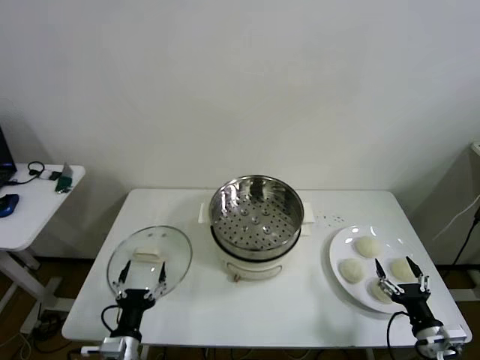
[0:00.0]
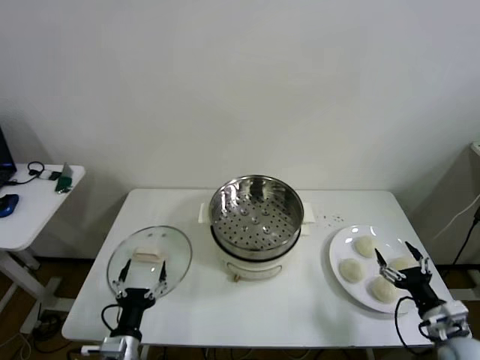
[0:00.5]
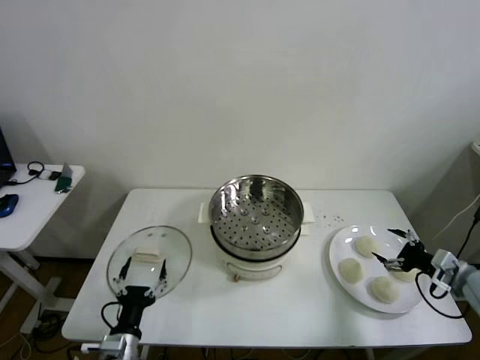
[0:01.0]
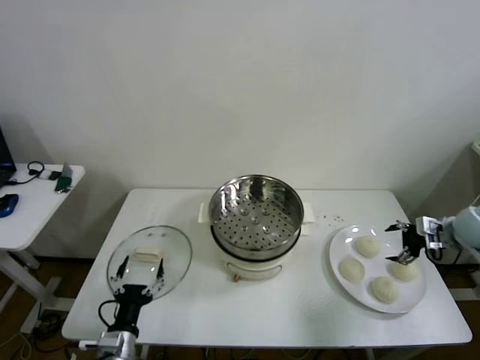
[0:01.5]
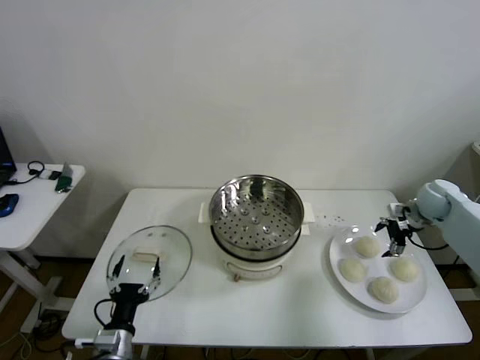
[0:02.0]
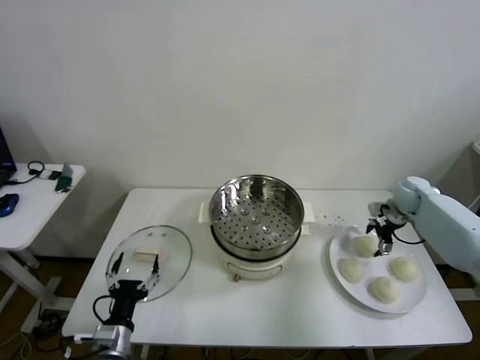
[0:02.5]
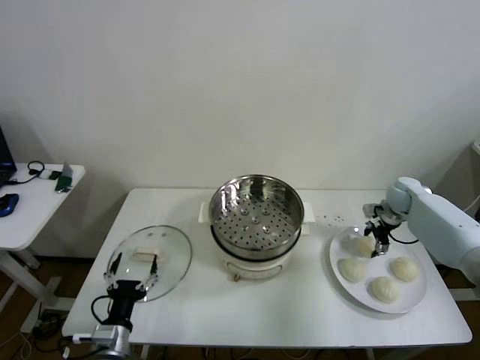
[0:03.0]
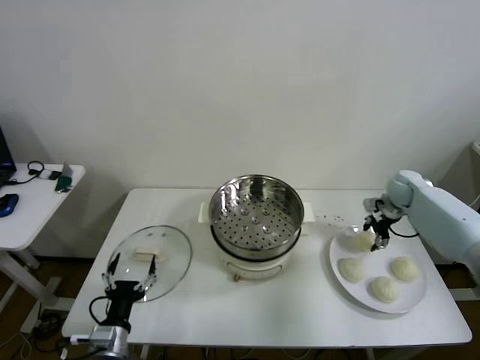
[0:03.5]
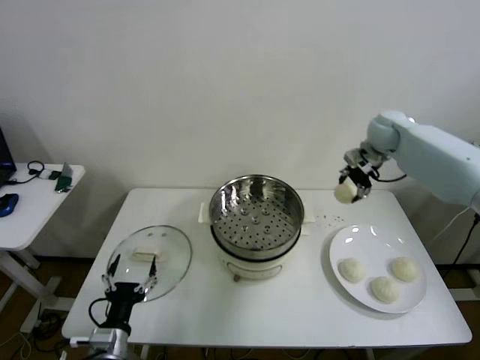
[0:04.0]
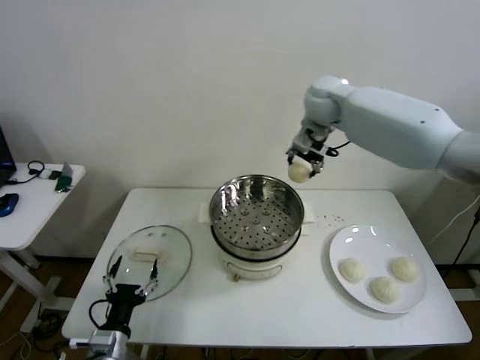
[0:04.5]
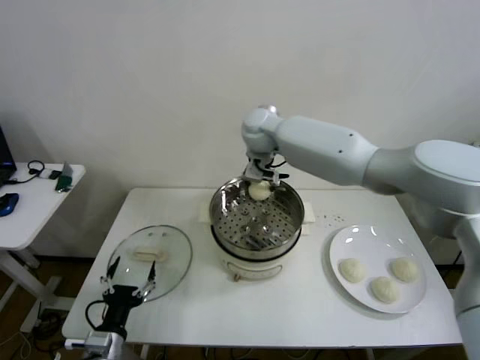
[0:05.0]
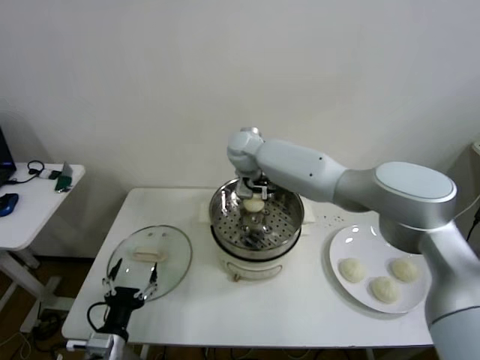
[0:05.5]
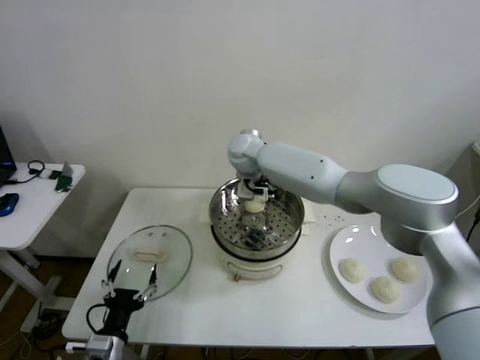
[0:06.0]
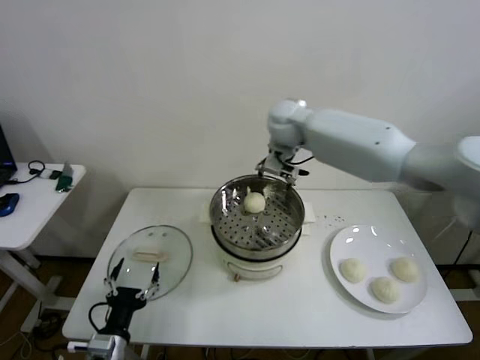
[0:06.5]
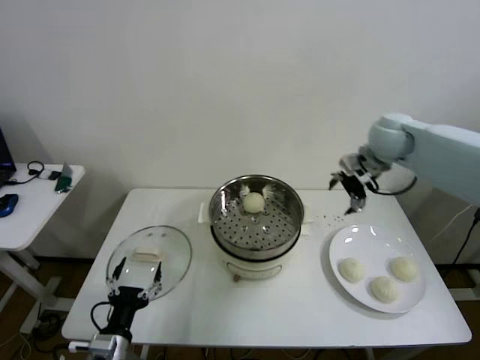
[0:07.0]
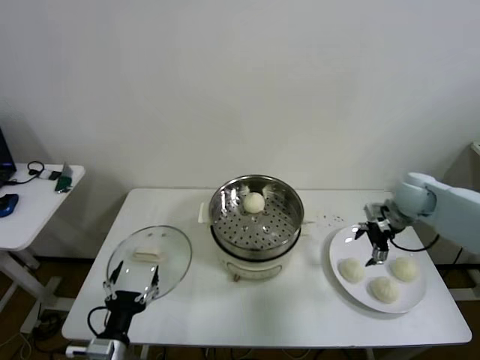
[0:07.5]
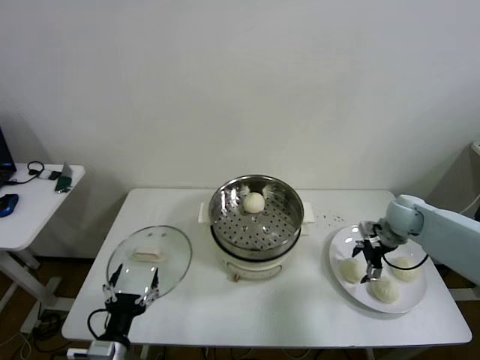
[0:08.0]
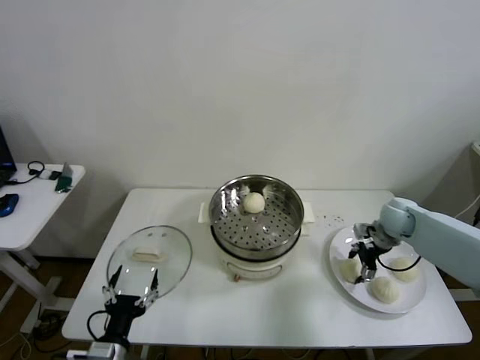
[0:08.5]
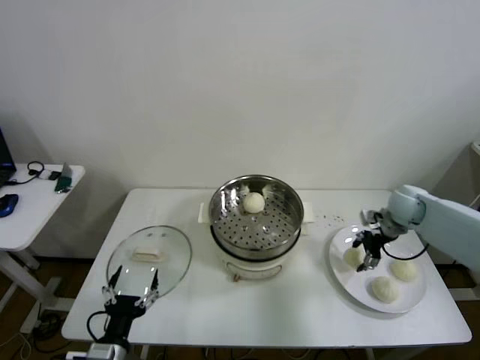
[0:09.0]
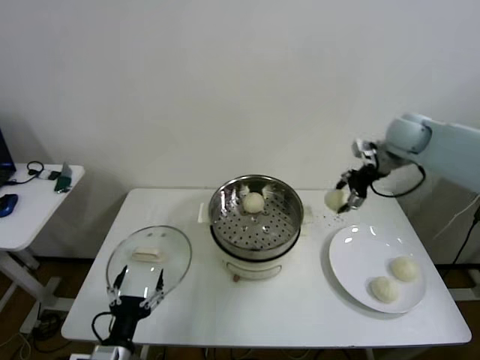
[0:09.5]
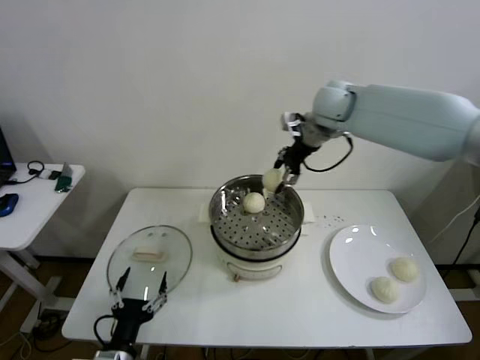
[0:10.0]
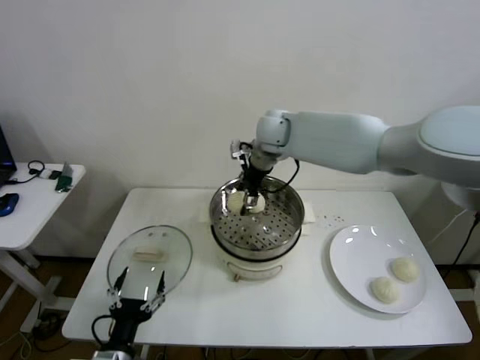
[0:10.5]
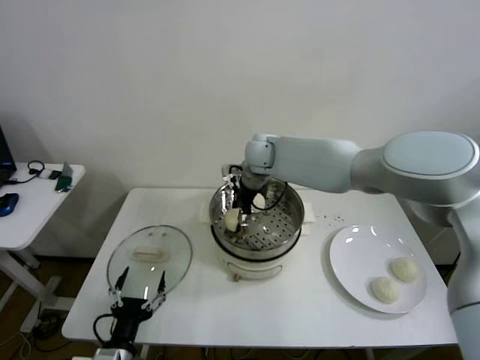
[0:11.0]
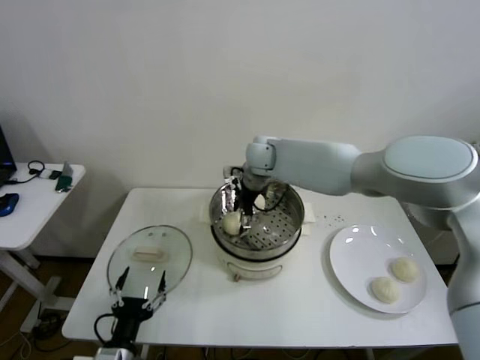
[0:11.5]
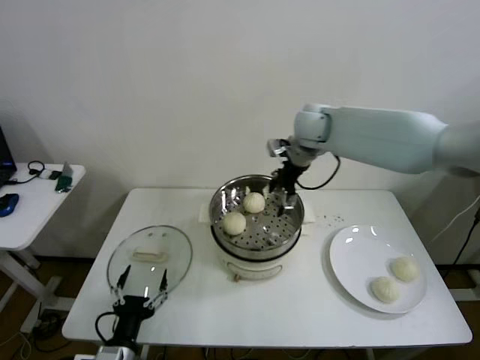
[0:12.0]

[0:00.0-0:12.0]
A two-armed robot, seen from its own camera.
Step, 0:00.0 to 0:03.0: Grasp the baozi in the plate with right gripper.
Step, 0:03.5 to 0:05.5: Place the baozi on the steamer with right gripper.
Step, 0:06.0 to 0:08.5: Grasp the baozi in the plate with right gripper.
Step, 0:09.0 to 0:11.0: Place the baozi on the steamer with right gripper.
0:02.0 to 0:04.0: The right gripper travels upward, to the left and forward by some 25 cm, and closes.
0:04.0 to 0:06.0: The right gripper goes roughly 35 cm to the left, and opens up.
0:06.0 to 0:08.0: The right gripper is displaced to the right by roughly 40 cm.
0:08.0 to 0:10.0: The right gripper heads upward and to the left, covering some 35 cm, and closes.
0:10.0 to 0:12.0: The right gripper moves some 15 cm to the left and comes back, and opens up.

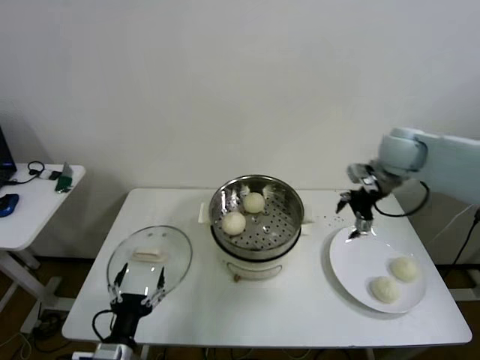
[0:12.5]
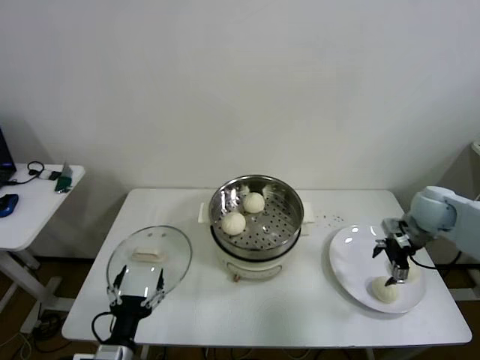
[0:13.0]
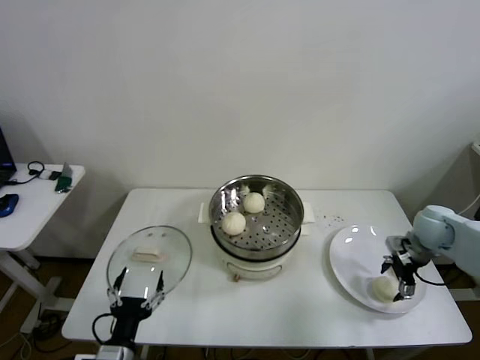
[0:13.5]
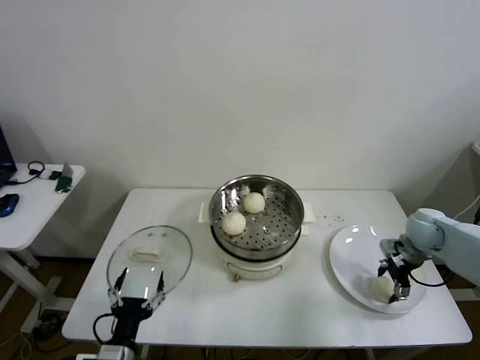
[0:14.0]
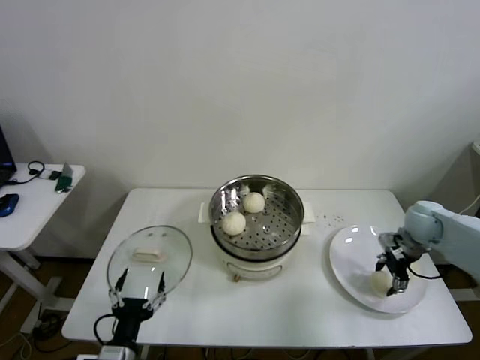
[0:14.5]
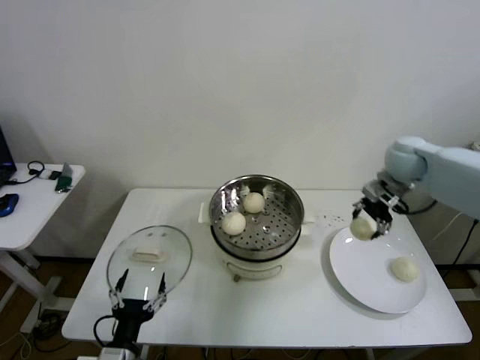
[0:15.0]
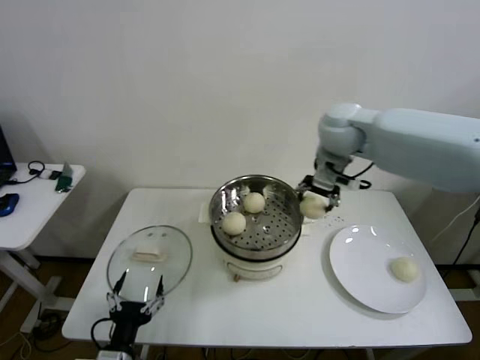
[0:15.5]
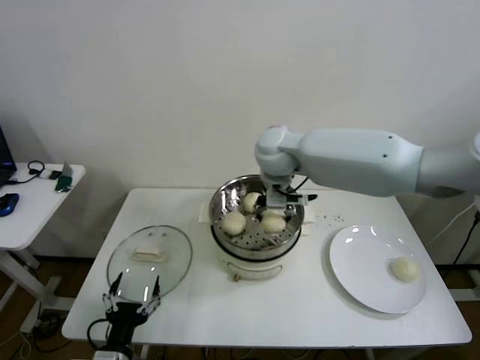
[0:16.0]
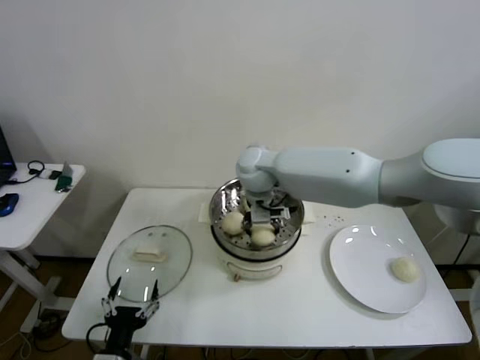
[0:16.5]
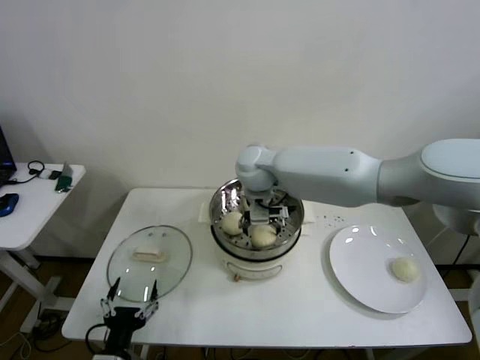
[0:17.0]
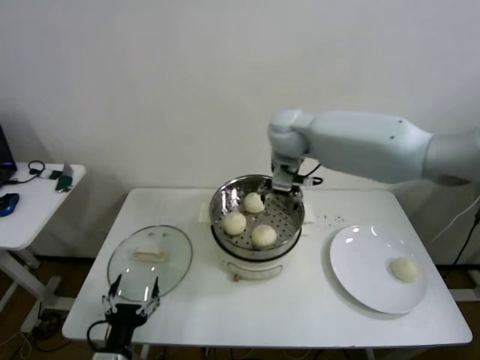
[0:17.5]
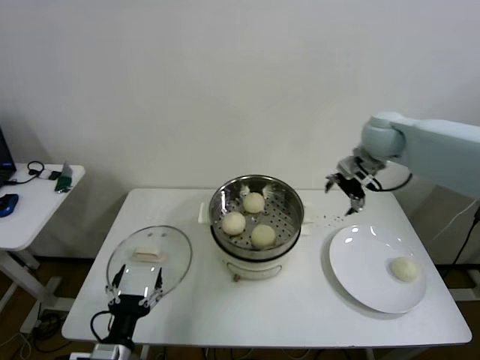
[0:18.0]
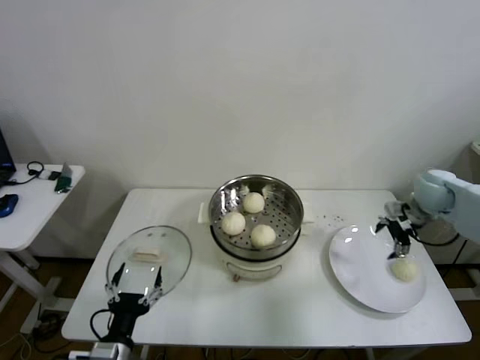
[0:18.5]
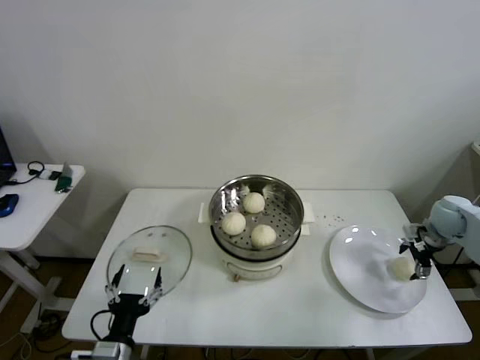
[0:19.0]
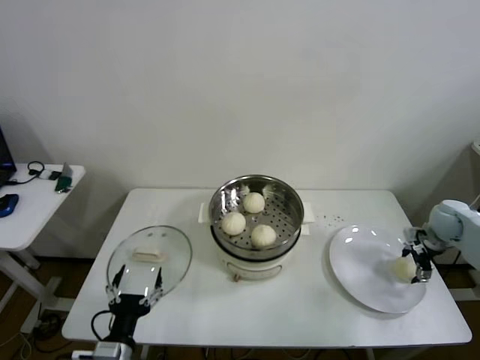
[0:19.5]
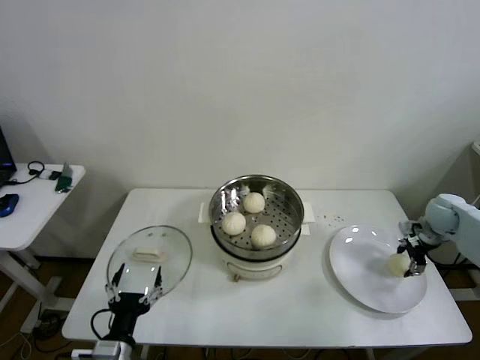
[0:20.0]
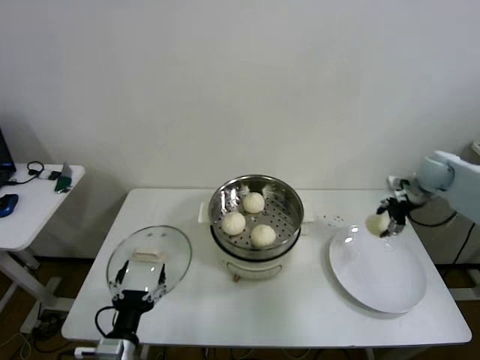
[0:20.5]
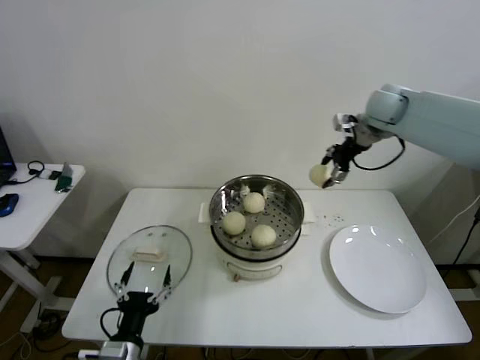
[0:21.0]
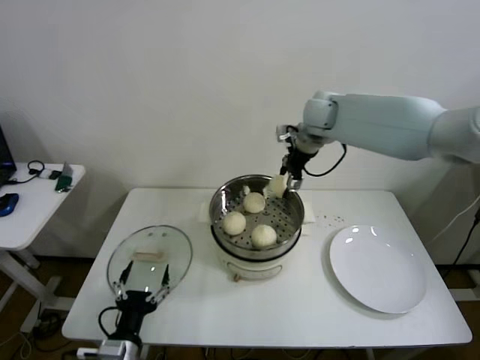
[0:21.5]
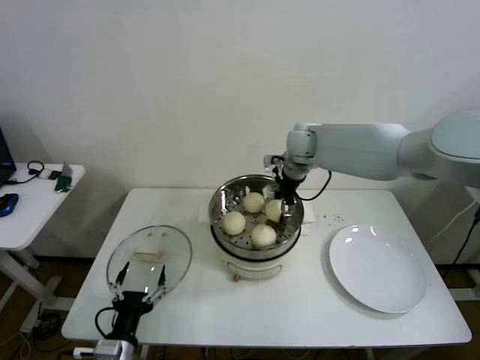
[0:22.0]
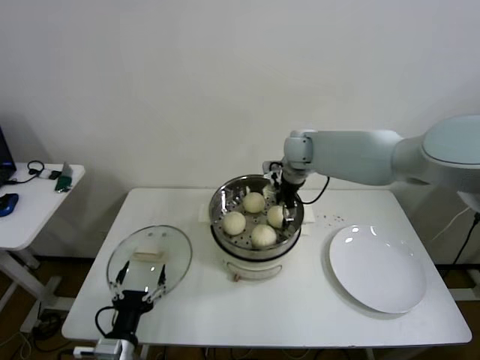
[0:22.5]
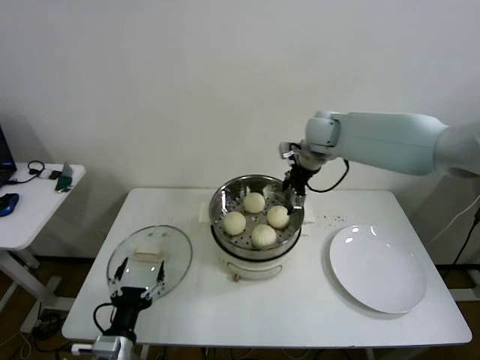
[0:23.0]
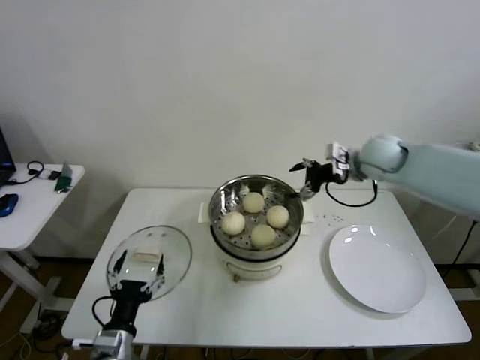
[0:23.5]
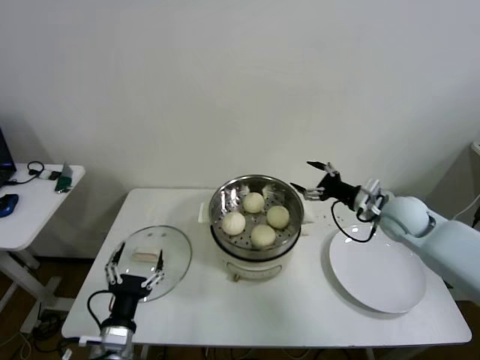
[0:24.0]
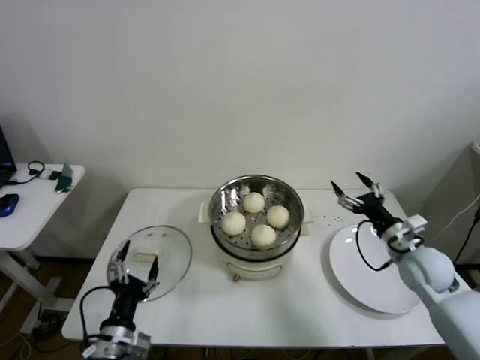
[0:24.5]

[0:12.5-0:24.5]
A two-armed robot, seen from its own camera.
Step, 0:12.5 to 0:14.0: Grasp the baozi in the plate with right gripper.
Step, 0:14.5 to 0:17.0: Place the baozi on the steamer with right gripper.
Step, 0:17.5 to 0:19.5: Grasp the baozi in the plate with right gripper.
Step, 0:20.0 to 0:22.5: Place the baozi on the steamer with right gripper.
0:12.5 to 0:14.5: The right gripper moves downward and to the right, roughly 20 cm, and closes its fingers.
0:14.5 to 0:16.5: The right gripper is displaced to the left by approximately 40 cm.
0:16.5 to 0:18.5: The right gripper shifts approximately 40 cm to the right, and opens up.
0:18.5 to 0:20.5: The right gripper goes downward and returns, approximately 10 cm each way, and closes up.
0:20.5 to 0:22.5: The right gripper heads to the left, covering about 35 cm, and opens its fingers.
0:22.5 to 0:24.5: The right gripper heads to the right, backward and downward, covering some 35 cm.

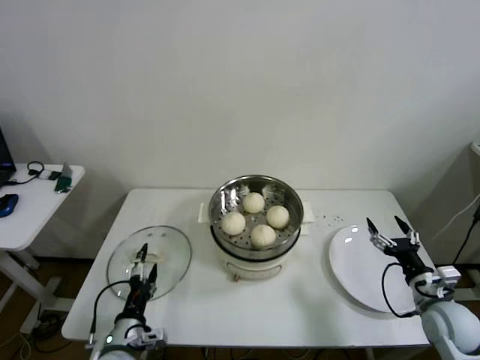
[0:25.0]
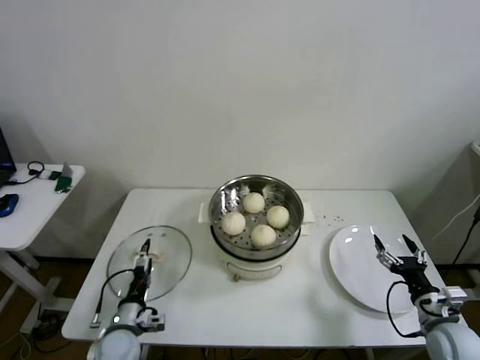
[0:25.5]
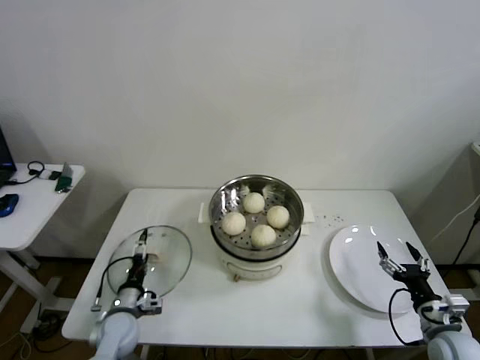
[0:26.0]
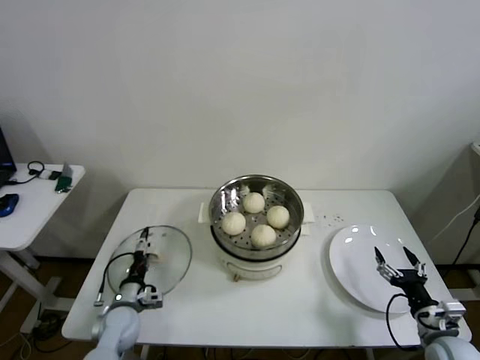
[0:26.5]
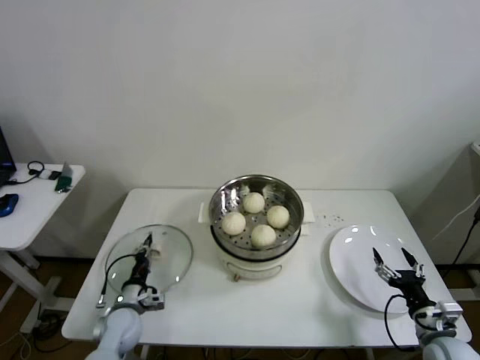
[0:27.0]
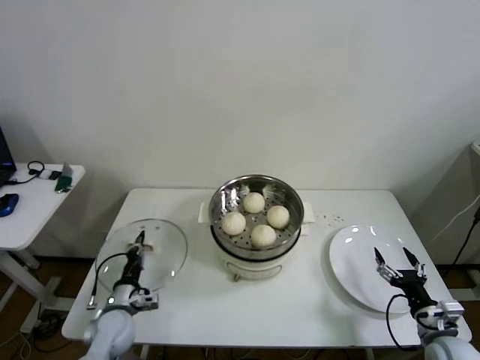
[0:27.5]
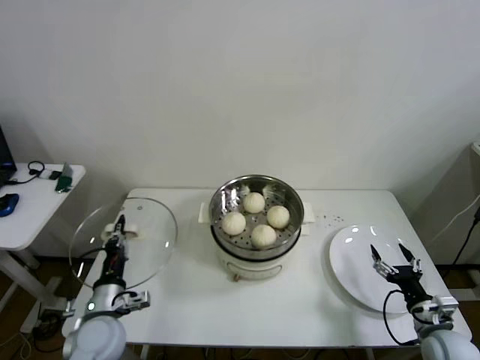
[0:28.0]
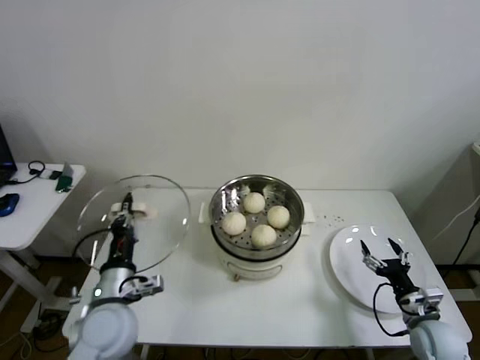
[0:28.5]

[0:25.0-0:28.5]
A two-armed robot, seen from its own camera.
Step, 0:25.0 to 0:27.0: Grasp the pot lid with left gripper.
0:25.0 to 0:27.0: The right gripper heads backward, covering roughly 5 cm. The left gripper goes approximately 15 cm forward and downward, and closes.
0:27.0 to 0:28.5: The left gripper travels upward by some 20 cm.
